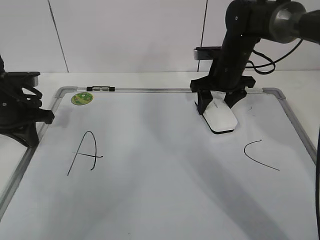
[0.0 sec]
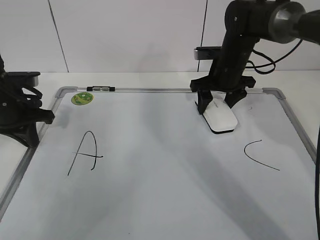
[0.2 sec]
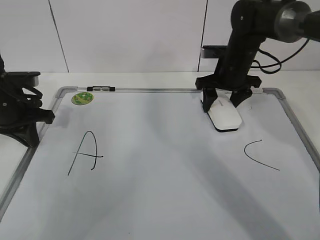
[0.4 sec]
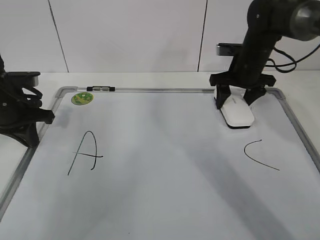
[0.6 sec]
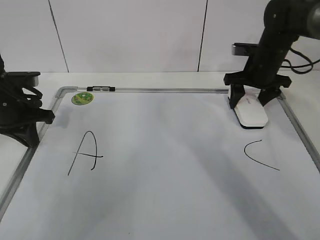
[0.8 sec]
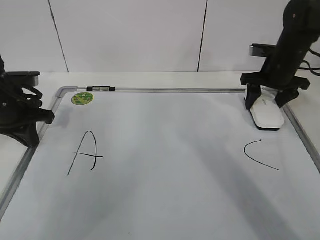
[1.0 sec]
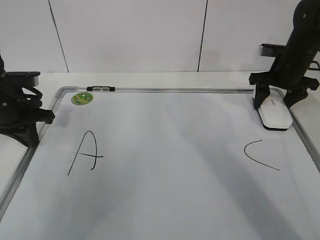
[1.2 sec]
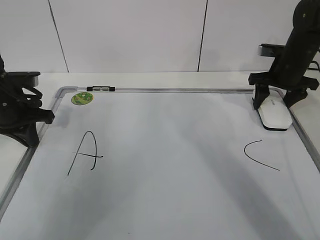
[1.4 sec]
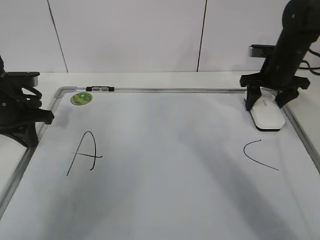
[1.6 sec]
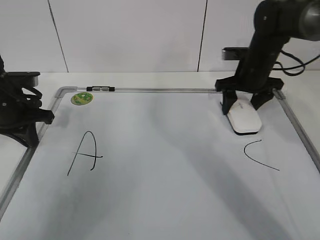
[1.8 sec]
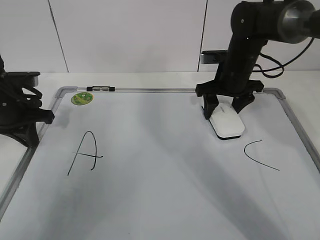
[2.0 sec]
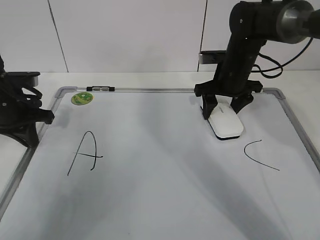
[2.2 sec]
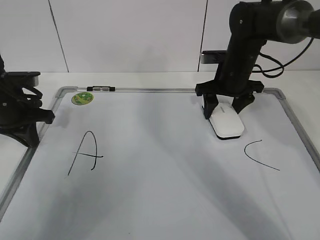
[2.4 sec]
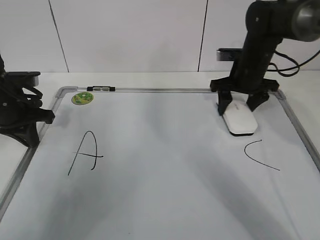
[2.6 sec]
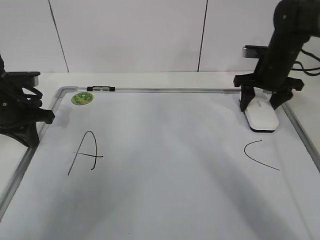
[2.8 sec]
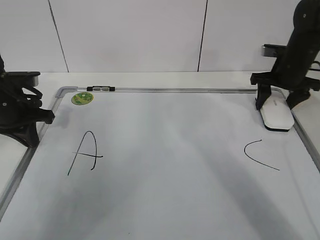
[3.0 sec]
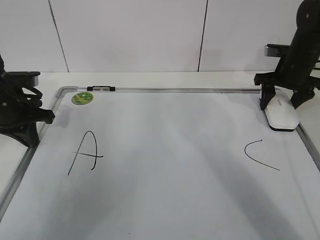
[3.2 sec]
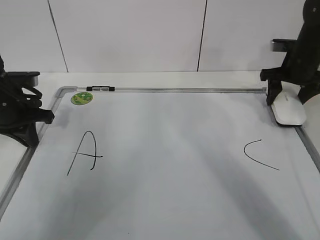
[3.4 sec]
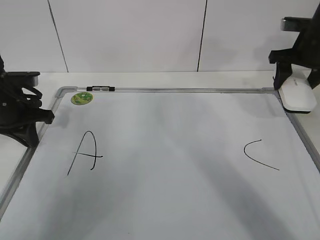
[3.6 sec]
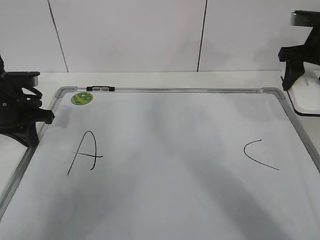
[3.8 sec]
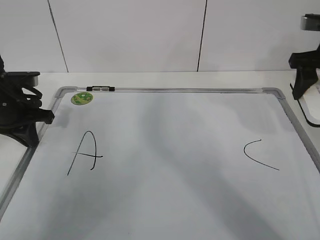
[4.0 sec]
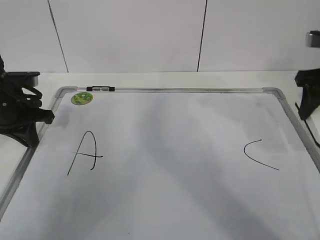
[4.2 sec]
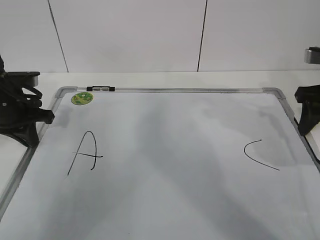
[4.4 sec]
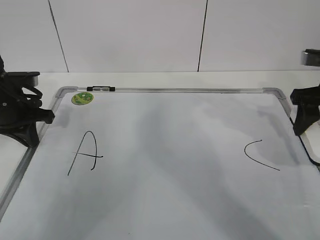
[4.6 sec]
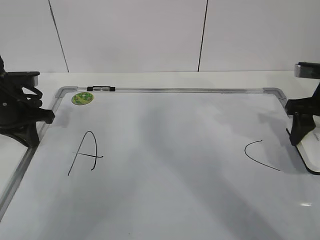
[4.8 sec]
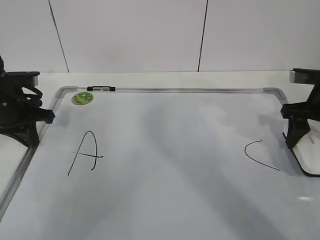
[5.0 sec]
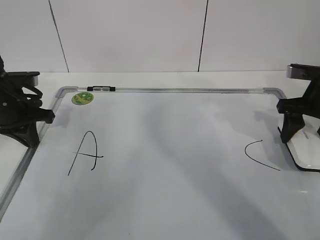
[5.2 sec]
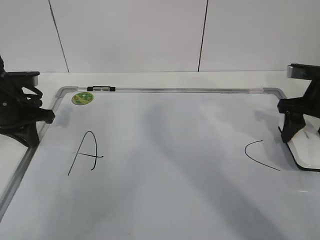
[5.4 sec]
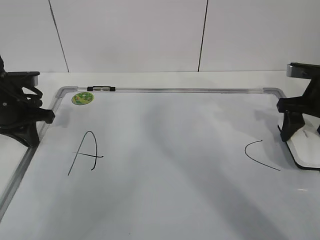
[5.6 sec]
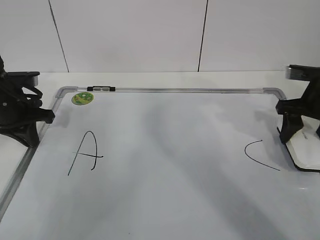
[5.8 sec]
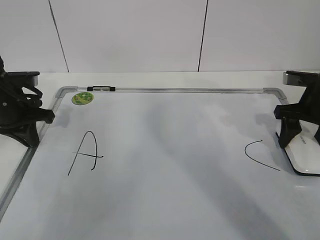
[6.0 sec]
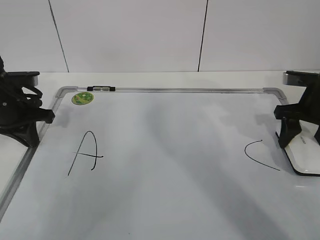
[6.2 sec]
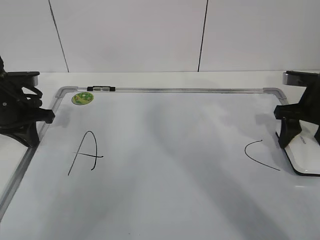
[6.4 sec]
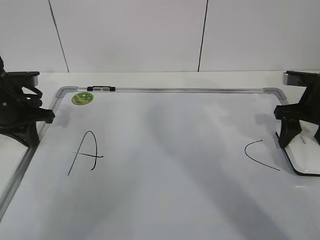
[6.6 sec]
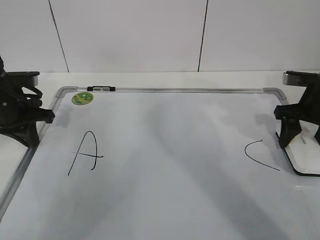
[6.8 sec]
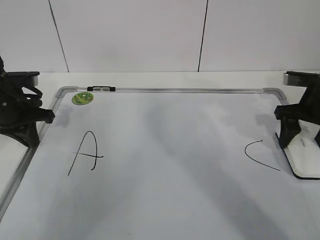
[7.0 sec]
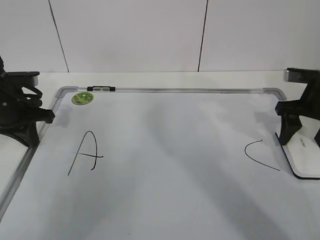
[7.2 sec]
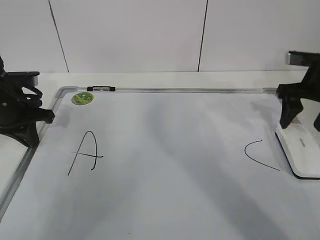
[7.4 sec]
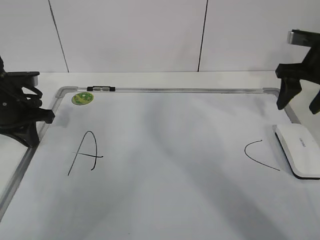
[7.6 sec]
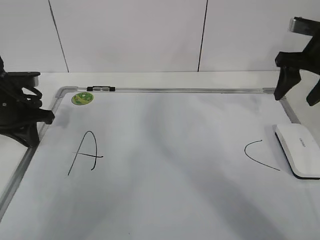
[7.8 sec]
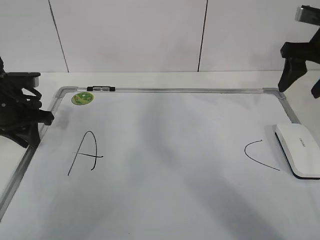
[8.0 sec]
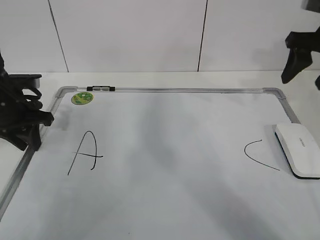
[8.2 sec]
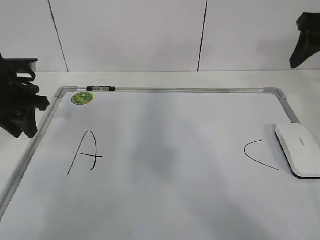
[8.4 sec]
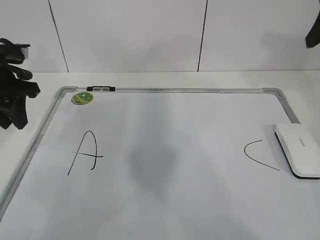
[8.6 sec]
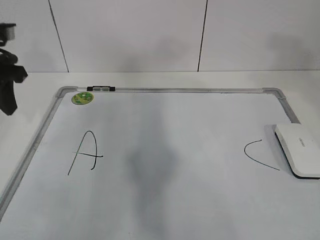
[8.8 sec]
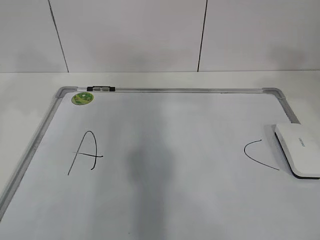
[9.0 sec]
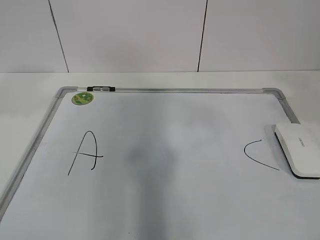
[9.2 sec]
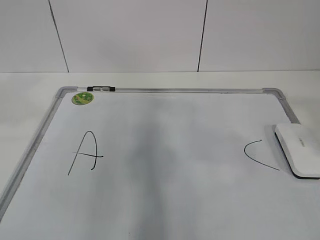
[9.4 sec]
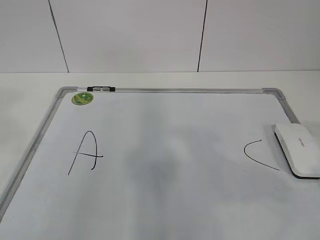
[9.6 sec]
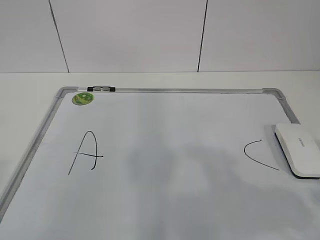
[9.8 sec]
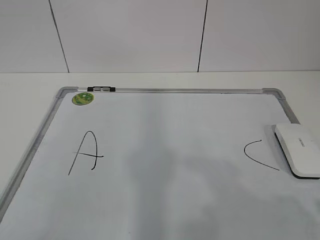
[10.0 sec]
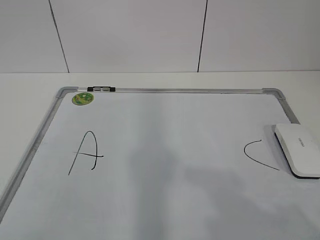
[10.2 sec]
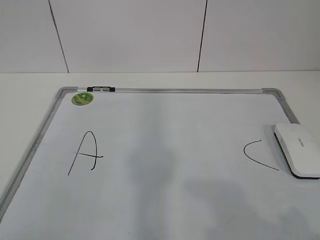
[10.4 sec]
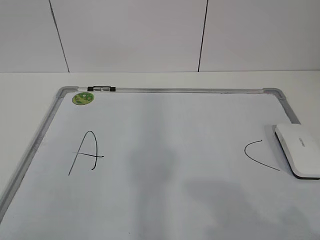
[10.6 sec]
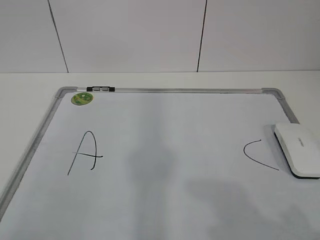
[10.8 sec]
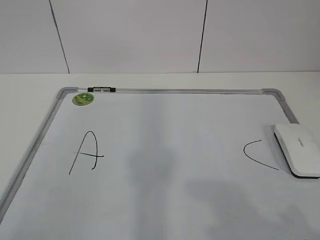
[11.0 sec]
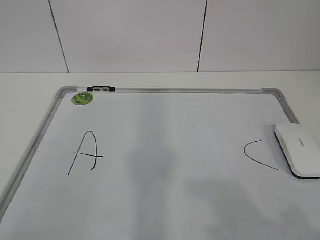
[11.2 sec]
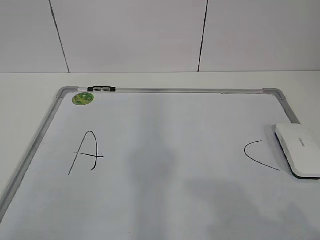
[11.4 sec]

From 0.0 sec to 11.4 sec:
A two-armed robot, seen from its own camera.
Task of the whole recording: pick up the eraser on the blackboard and erase the letter "B".
Step, from 1.0 sec to 3.8 sec: Put down the eraser with your right hand.
From 0.0 sec to 1.4 sec: The right gripper is displaced to the right by about 15 cm.
From 1.4 sec to 2.8 sec: The right gripper moves some 15 cm to the left and comes back.
From 2.8 sec to 4.2 sec: The right gripper heads backward, upward and to the right, covering about 15 cm.
From 4.2 sec to 5.6 sec: The right gripper travels downward by about 5 cm.
From 5.6 sec to 7.2 sec: The grippers stay close to where they were, moving slightly.
From 7.2 sec to 8.6 sec: The left gripper moves upward, roughly 5 cm, and opens up. The right gripper is displaced upward by some 20 cm.
From 8.6 sec to 10.0 sec: The two grippers go roughly 35 cm backward.

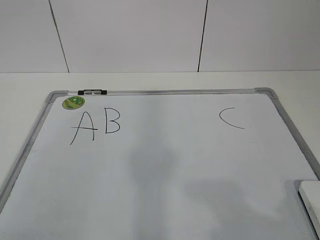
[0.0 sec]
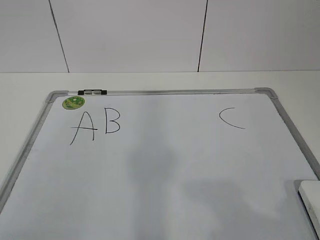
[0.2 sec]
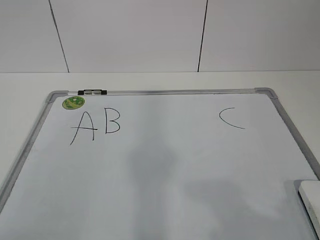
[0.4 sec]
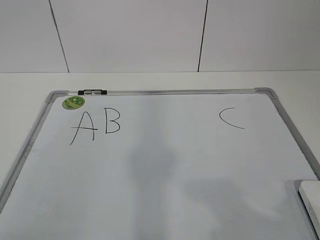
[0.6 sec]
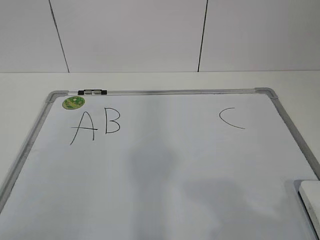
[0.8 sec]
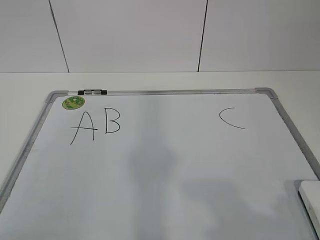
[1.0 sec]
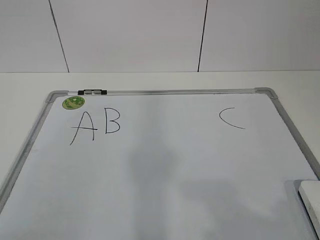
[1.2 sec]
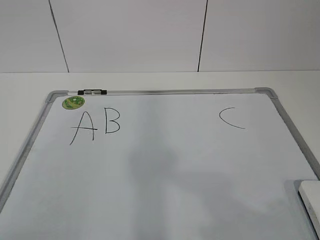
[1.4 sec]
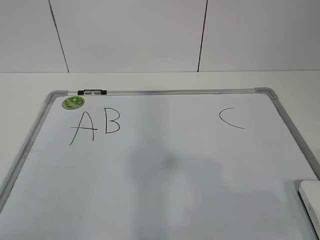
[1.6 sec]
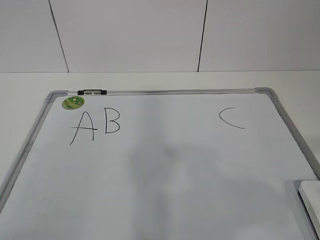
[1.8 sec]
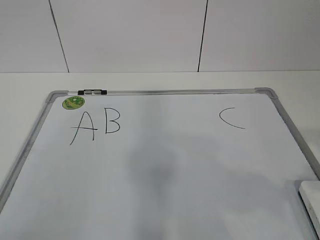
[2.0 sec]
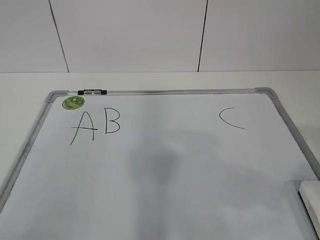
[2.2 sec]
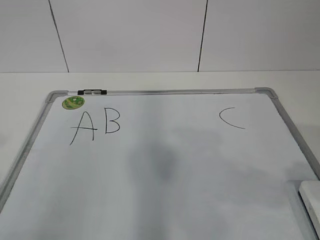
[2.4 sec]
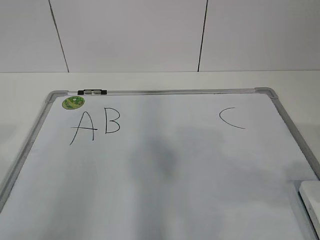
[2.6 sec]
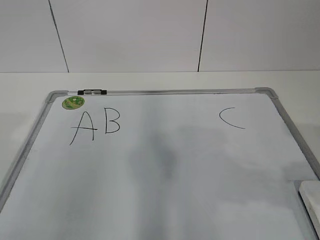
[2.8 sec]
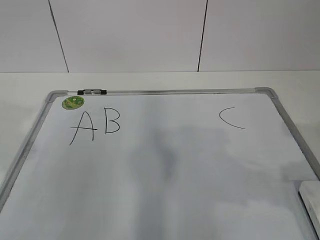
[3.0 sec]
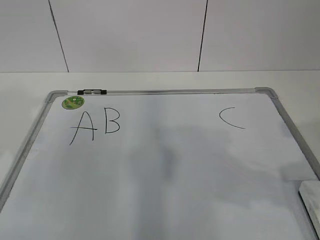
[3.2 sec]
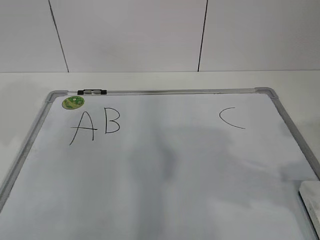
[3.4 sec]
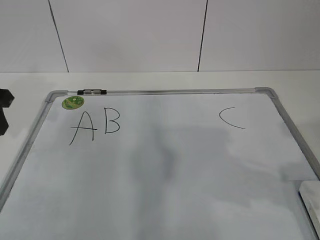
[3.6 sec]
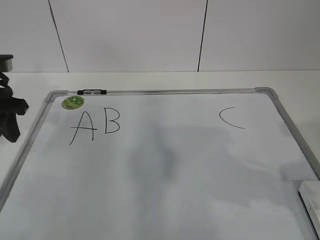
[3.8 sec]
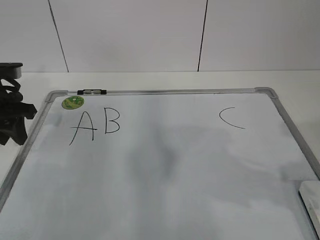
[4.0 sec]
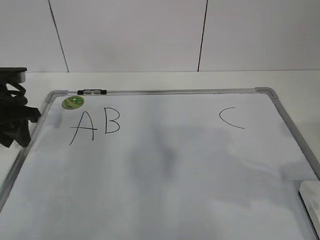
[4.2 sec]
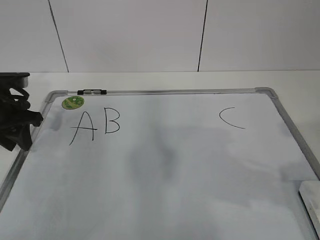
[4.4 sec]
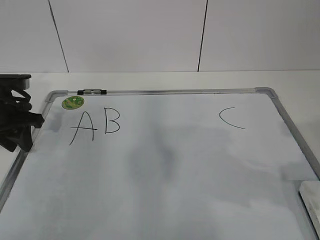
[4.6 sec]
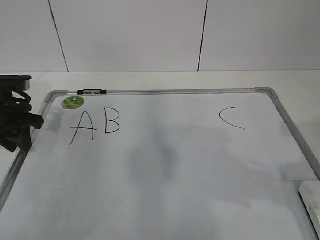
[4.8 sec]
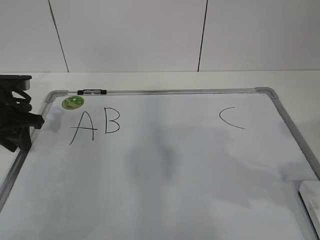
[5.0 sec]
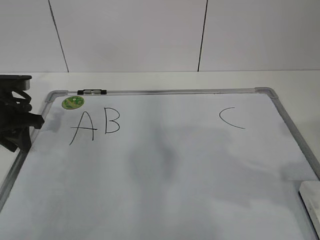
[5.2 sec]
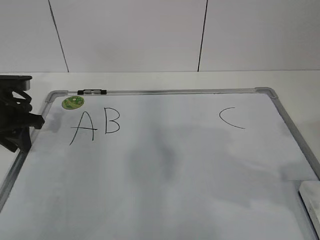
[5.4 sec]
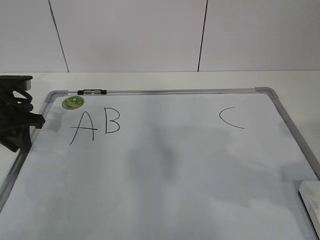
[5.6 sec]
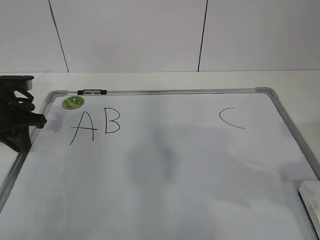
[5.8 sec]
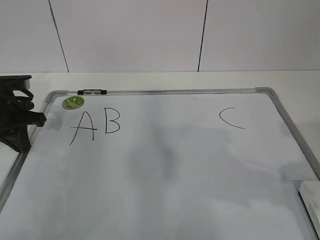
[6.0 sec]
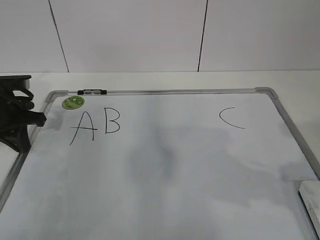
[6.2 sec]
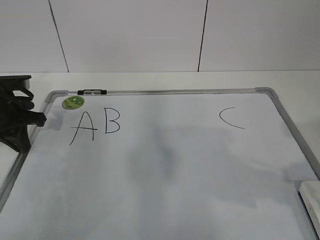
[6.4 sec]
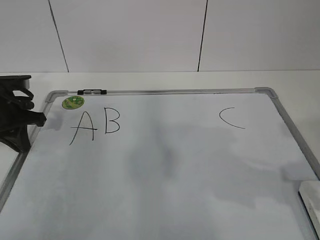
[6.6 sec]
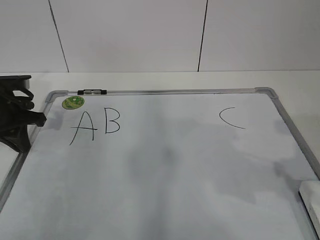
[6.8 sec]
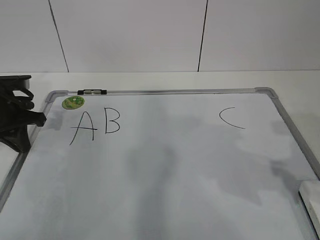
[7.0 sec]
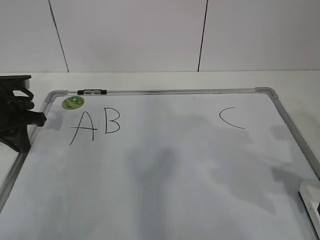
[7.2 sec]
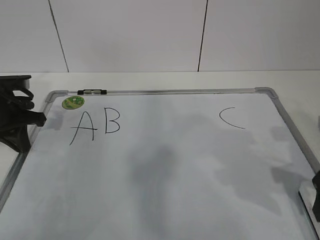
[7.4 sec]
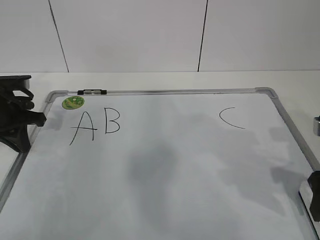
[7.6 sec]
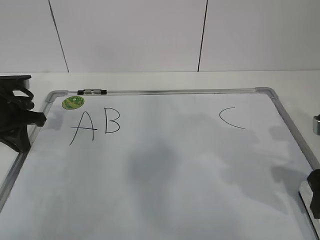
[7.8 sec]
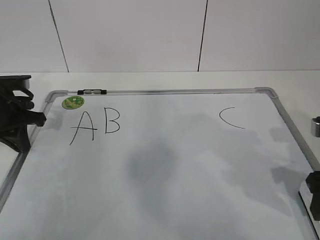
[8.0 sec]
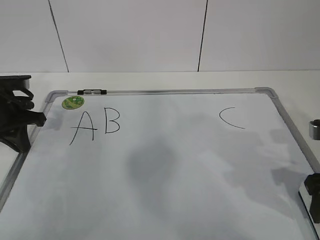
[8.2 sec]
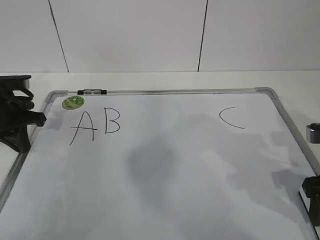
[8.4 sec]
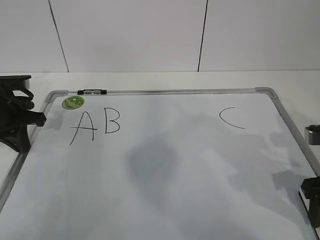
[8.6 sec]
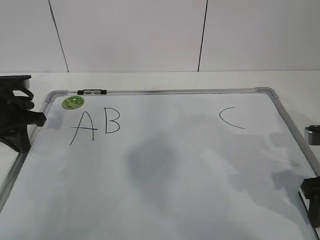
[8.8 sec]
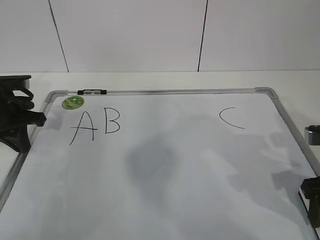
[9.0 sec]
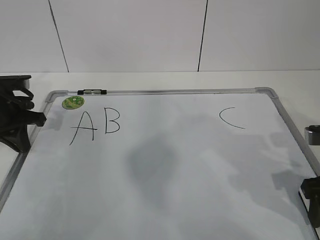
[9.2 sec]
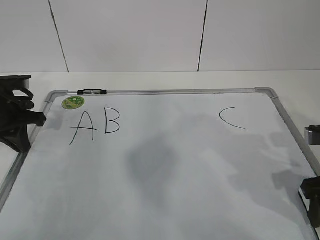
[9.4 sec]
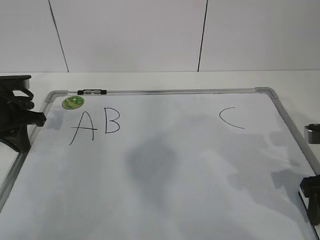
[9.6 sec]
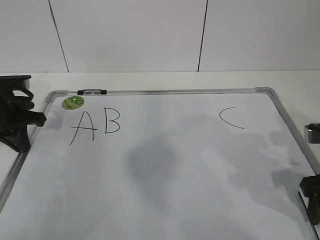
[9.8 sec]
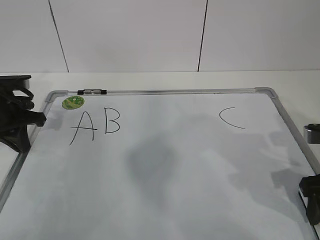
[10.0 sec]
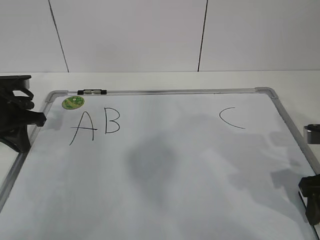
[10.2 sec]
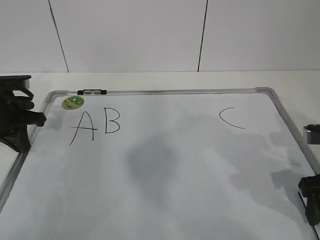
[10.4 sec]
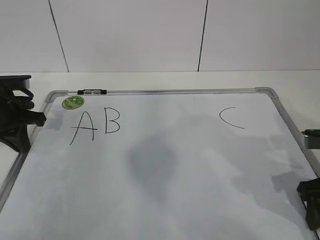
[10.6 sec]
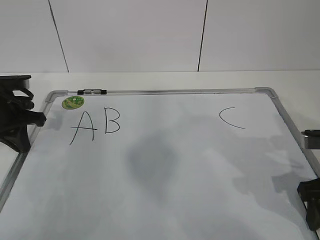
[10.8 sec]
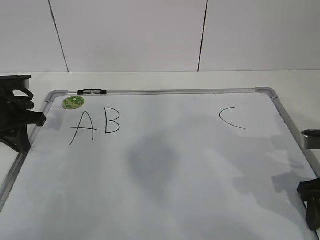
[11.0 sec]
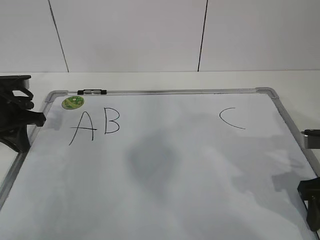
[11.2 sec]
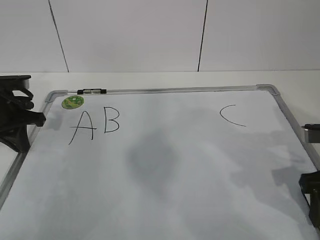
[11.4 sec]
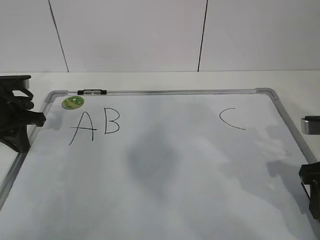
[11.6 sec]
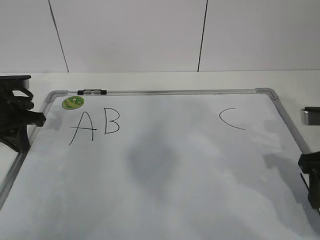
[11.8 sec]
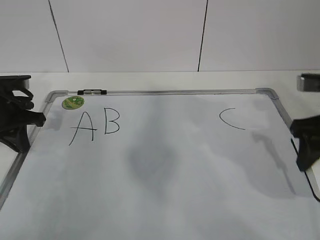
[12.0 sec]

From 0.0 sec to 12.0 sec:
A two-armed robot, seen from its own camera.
Task of the whole recording: pick up the eraser on the blackboard and erase the letter "B".
Step, from 0.0 sec to 4.8 sec: Hold the drawing board steady with your left hand.
From 3.0 sec to 4.4 sec: The left gripper moves forward and downward, some 20 cm.
From 4.4 sec to 6.0 sec: The left gripper closes.
From 6.0 sec to 7.6 sec: The right gripper is displaced forward and downward by some 10 cm, and opens up.
From 7.6 sec to 9.0 sec: The right gripper closes its fingers.
From 9.0 sec to 10.4 sec: Both grippers stay about where they are.
From 10.4 sec to 12.0 sec: The right gripper moves upward, some 5 cm, and closes.
